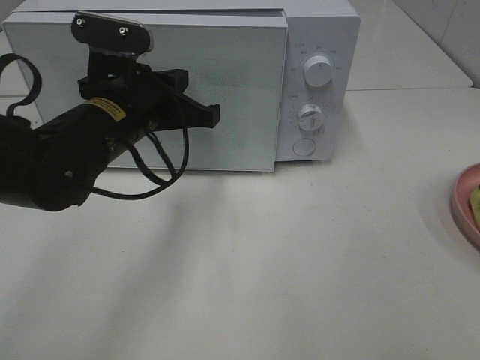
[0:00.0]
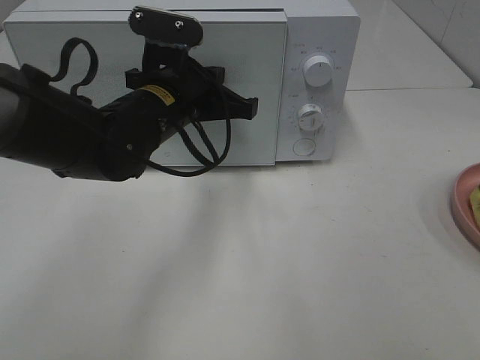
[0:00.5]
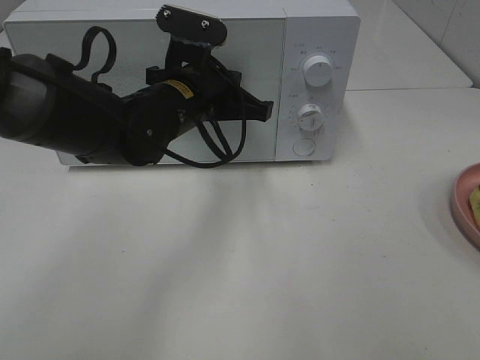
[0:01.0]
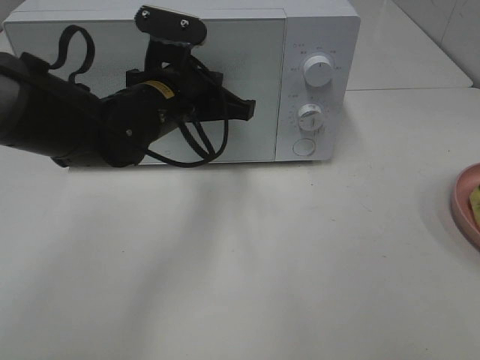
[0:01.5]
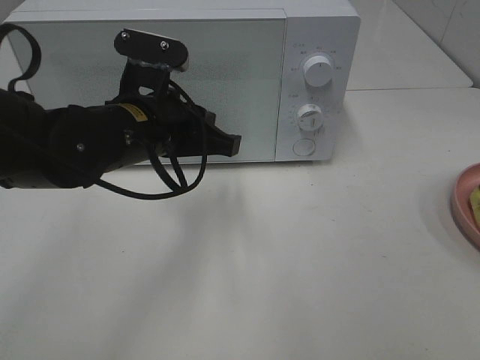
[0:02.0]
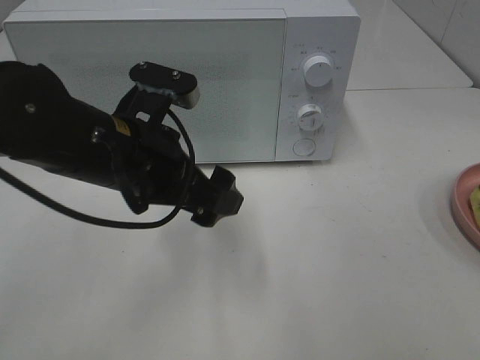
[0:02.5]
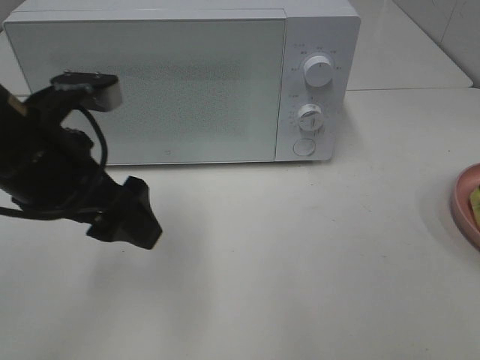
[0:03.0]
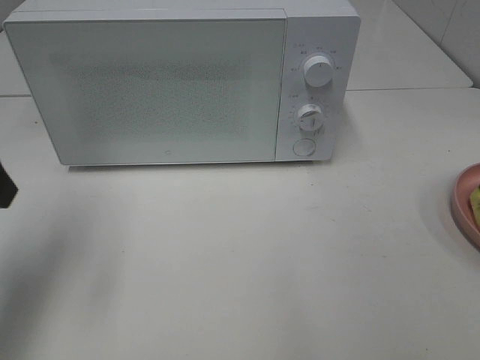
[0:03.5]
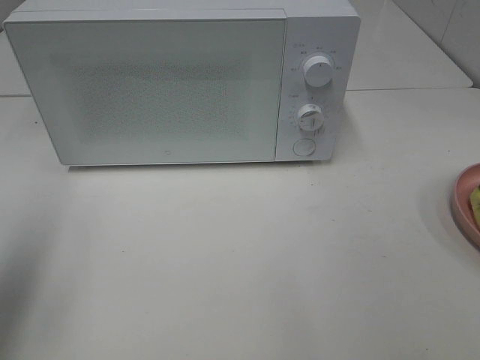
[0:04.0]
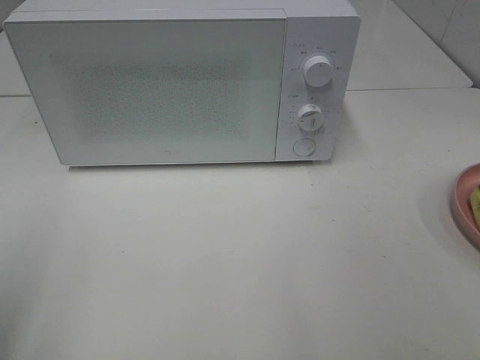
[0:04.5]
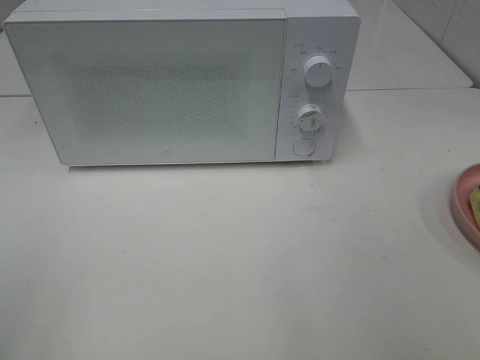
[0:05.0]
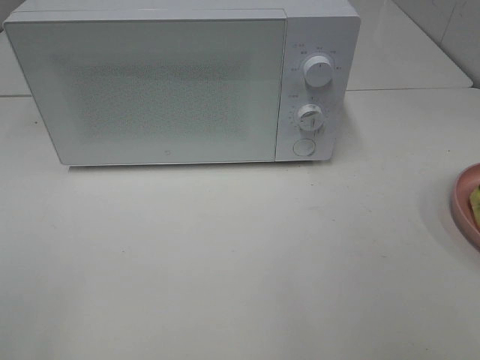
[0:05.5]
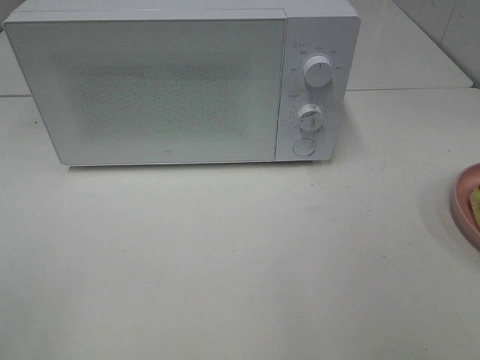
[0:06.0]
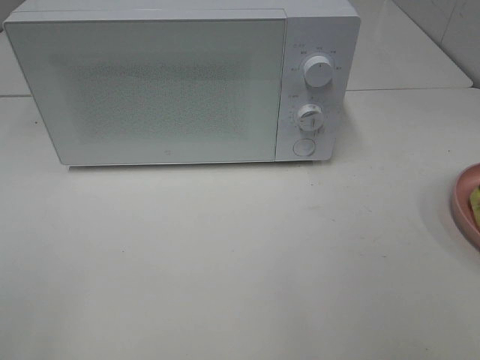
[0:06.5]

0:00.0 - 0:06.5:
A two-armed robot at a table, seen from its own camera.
Task of the whole recording: Heat Sandwich.
Step, 0:00.0 - 0:02.0: Left hand: close the microwave door.
0:02.0 - 0:04.5: The left gripper shifts roughly 35 cm to the left, backward and upward, and opens its fingers.

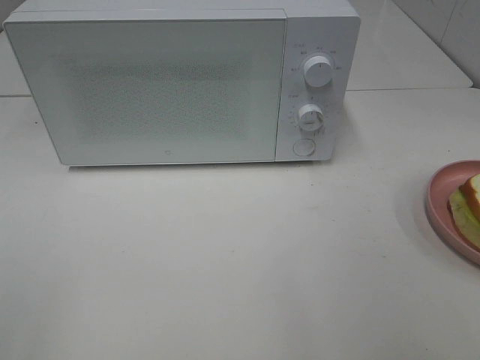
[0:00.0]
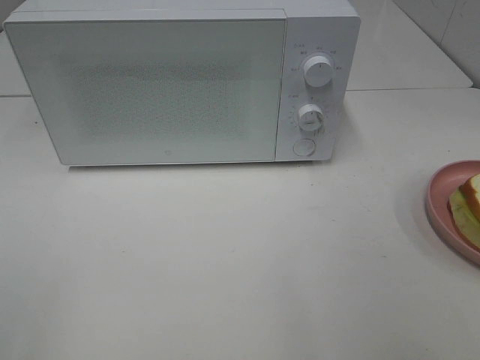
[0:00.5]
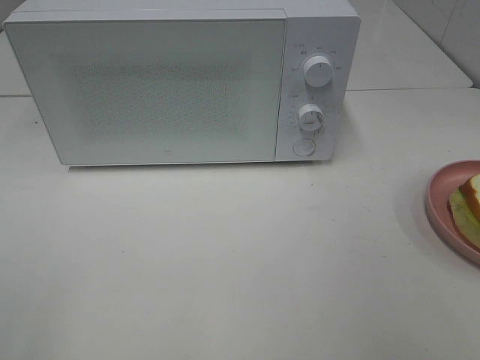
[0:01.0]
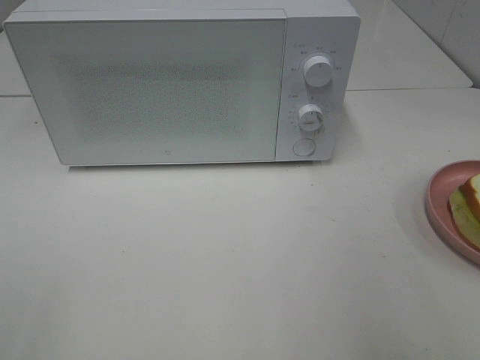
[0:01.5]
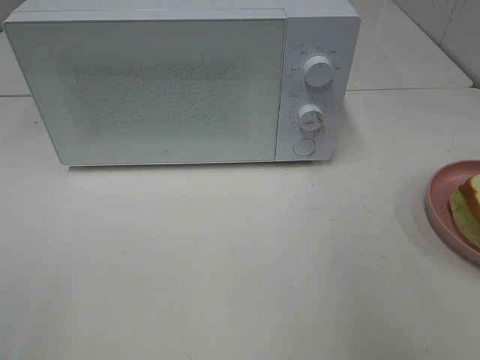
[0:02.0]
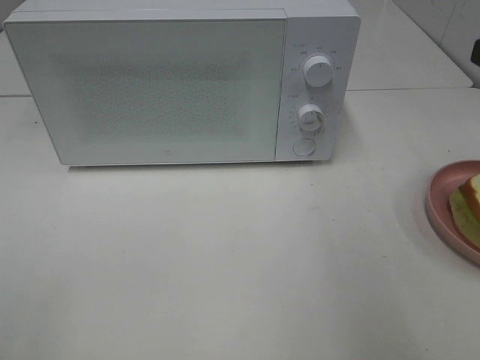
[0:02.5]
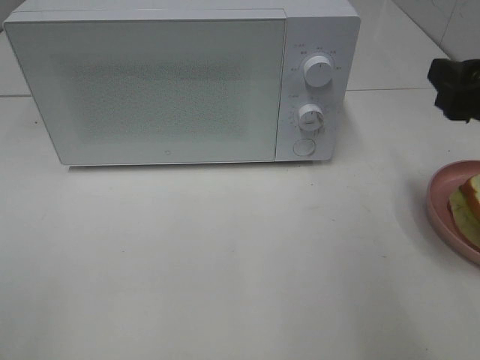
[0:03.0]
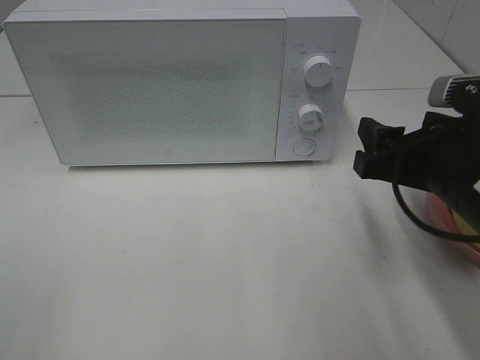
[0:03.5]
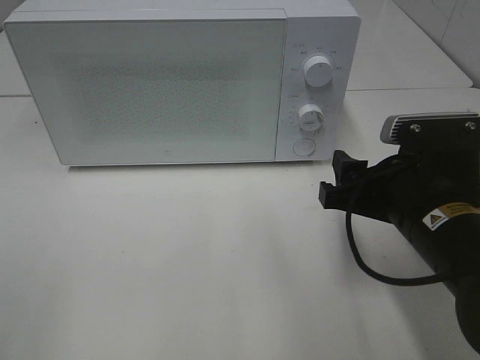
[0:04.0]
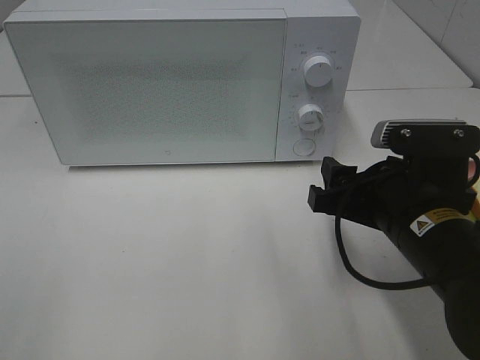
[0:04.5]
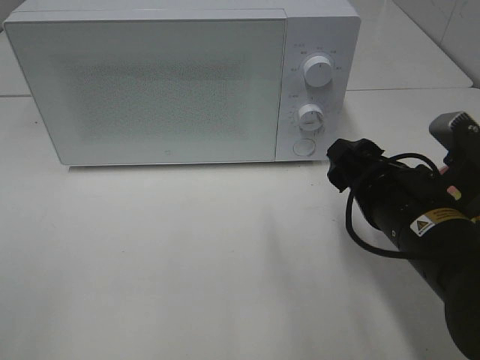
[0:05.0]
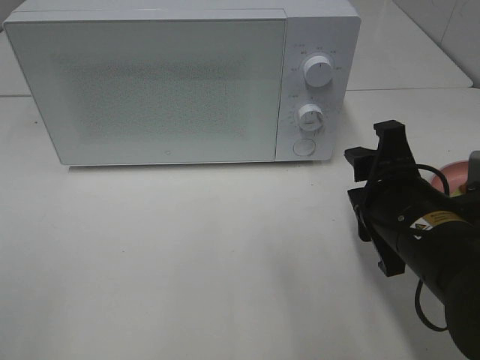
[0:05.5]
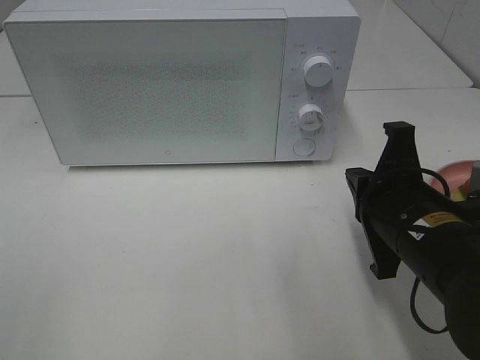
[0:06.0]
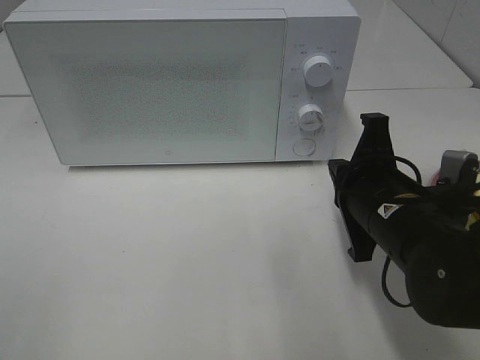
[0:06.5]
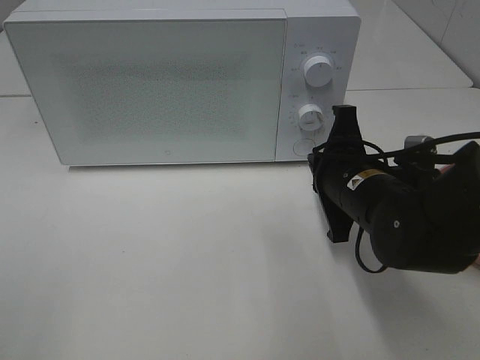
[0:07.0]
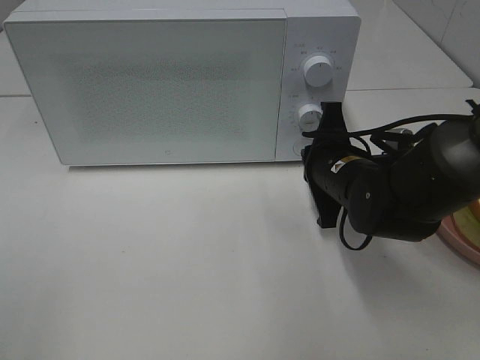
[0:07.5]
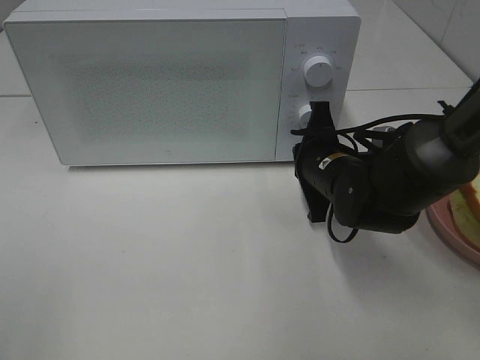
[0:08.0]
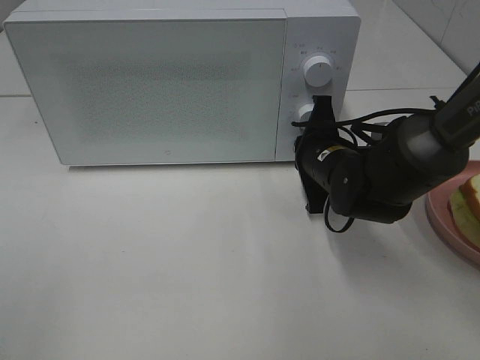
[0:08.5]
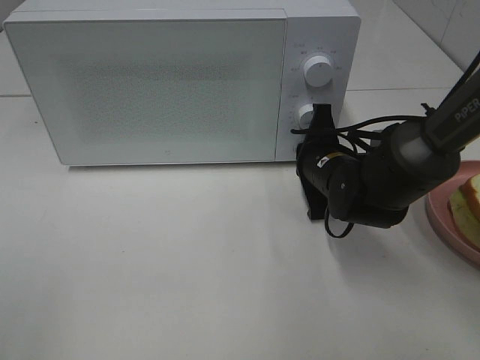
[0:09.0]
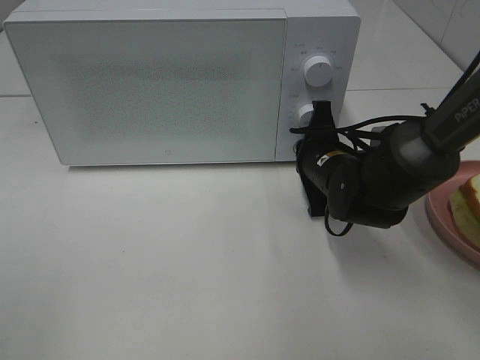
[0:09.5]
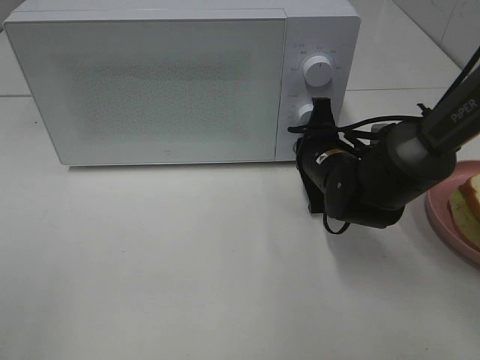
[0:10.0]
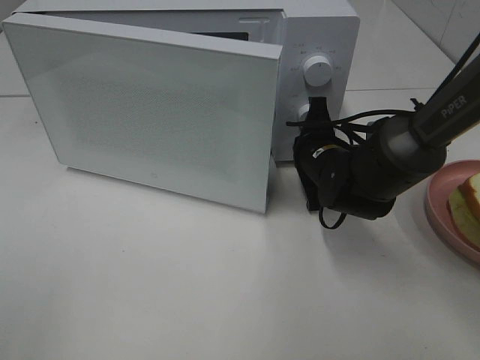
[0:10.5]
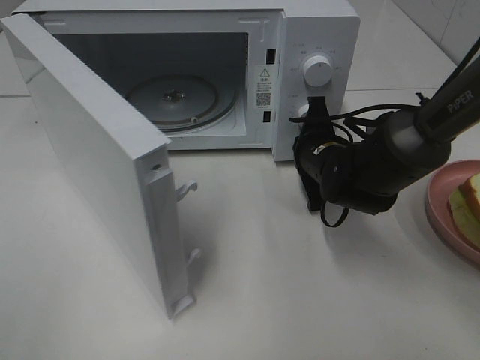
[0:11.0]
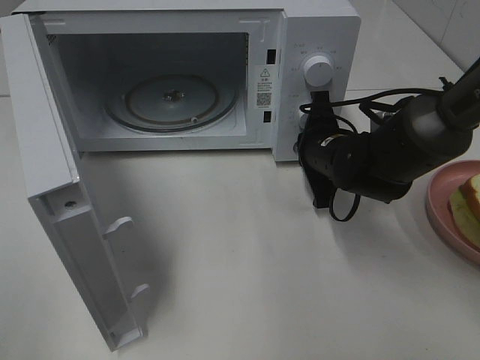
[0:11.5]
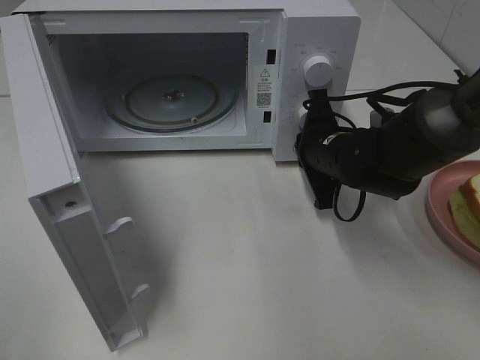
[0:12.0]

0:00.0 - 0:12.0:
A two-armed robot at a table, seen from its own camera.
Task of the whole recording: Heat Sandwich.
0:02.0 - 0:04.0: The right gripper heads downward and to the left, covering roughly 20 cm.
0:04.0 - 0:06.0: The right gripper closes its fingers.
0:06.0 - 0:08.0: The right gripper goes approximately 15 cm forward.
0:08.0 - 0:10.0: The grippers move only a little.

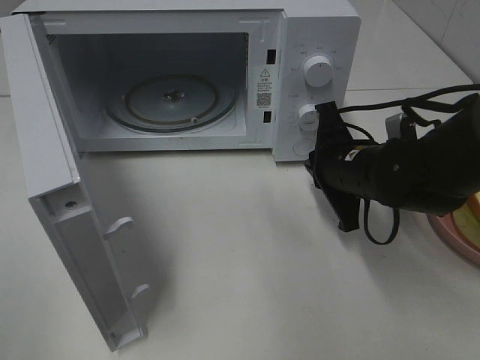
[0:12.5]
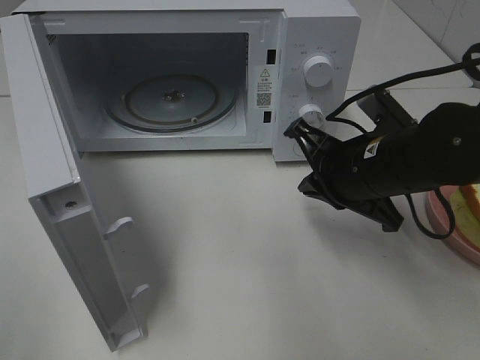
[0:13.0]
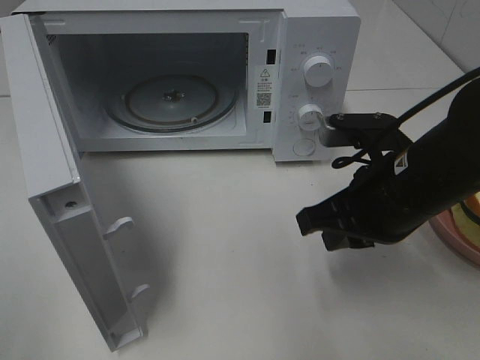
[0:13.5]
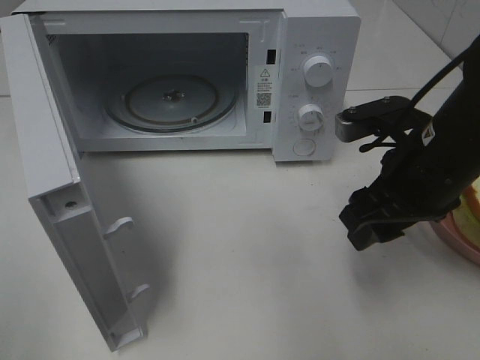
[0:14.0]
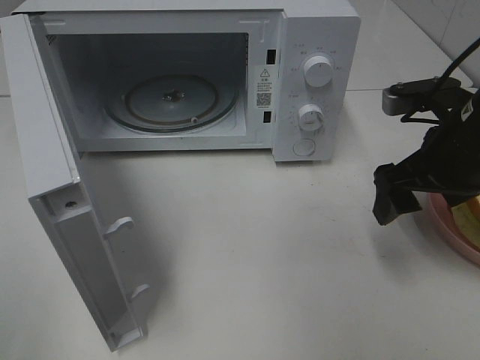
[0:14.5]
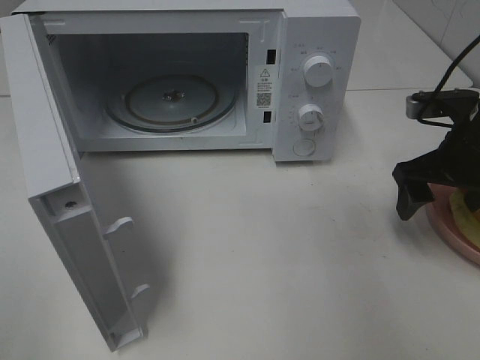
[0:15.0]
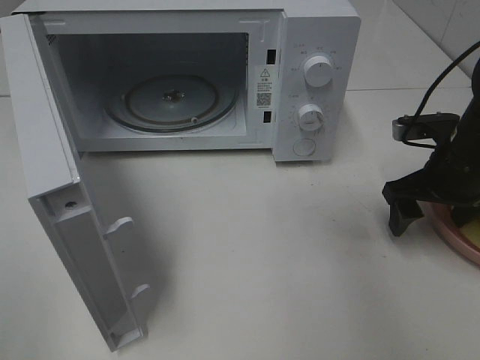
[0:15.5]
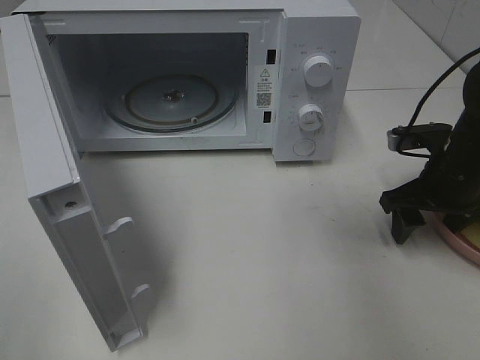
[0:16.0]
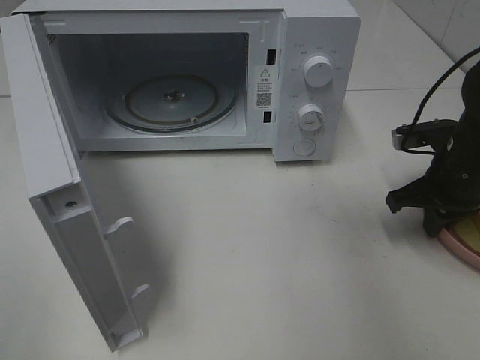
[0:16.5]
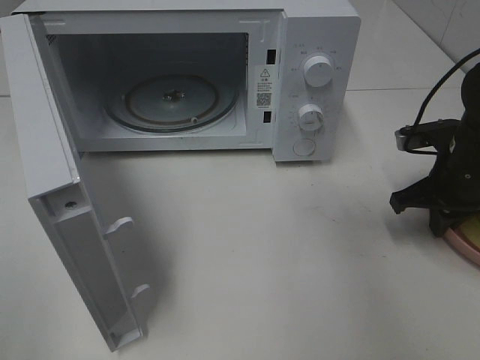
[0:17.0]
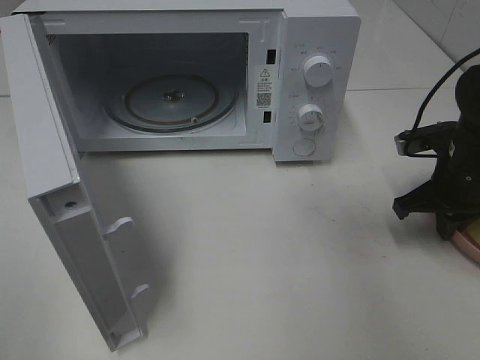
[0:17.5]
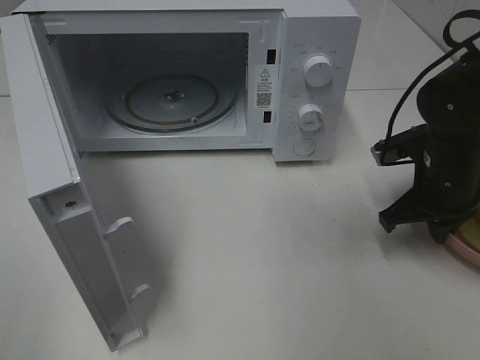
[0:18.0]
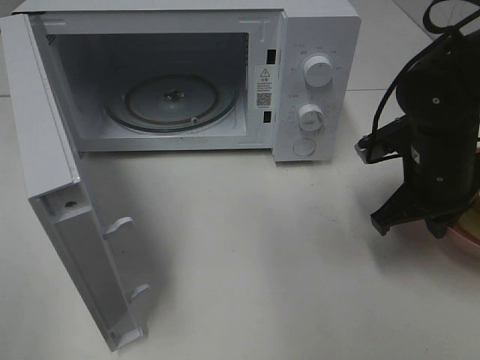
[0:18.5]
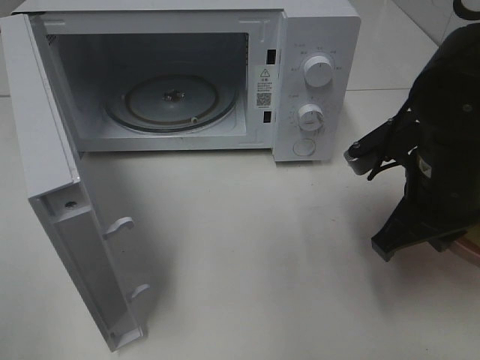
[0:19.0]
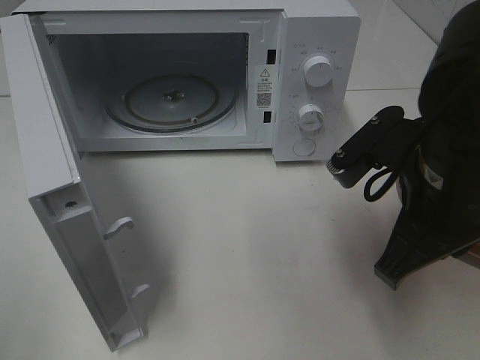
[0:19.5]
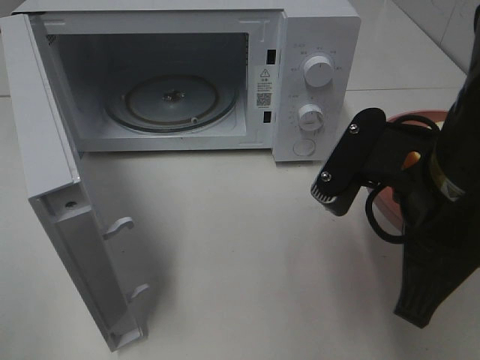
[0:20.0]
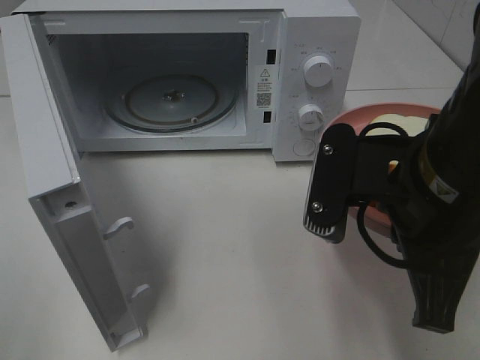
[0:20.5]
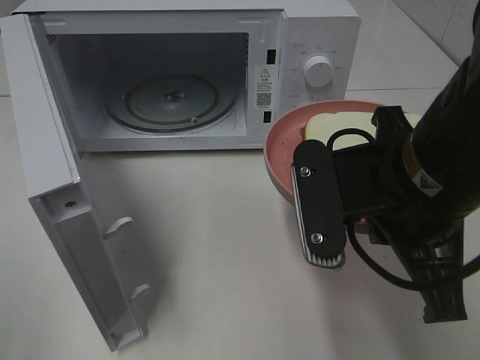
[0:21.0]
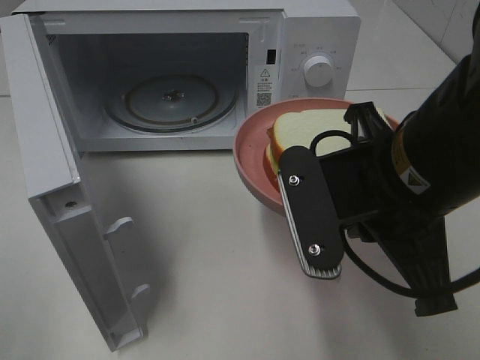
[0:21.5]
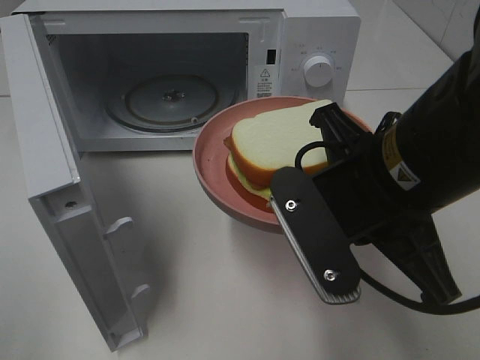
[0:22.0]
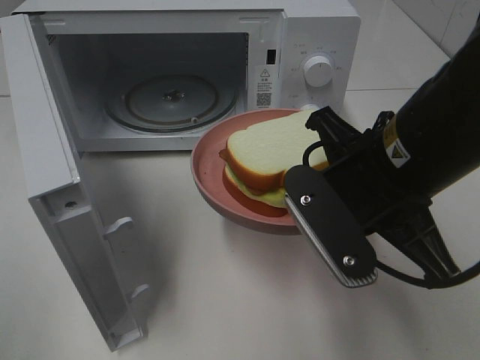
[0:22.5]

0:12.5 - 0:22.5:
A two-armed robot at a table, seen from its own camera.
Task of the whole recording: Heat Sandwich.
Step, 0:12.5 - 0:16.5: Right hand: grab the plate with the sandwich.
0:12.5 - 0:14.5: The right gripper heads upward and to the right, covering roughly 10 cm, and opens up.
0:14.5 - 0:16.5: The right gripper shifts some 10 cm downward and forward, and closes.
0:16.5 - 0:18.5: The right gripper shifts roughly 5 cm to the left.
0:18.5 - 0:20.5: The right gripper shifts about 15 cm backward, upward and to the left.
